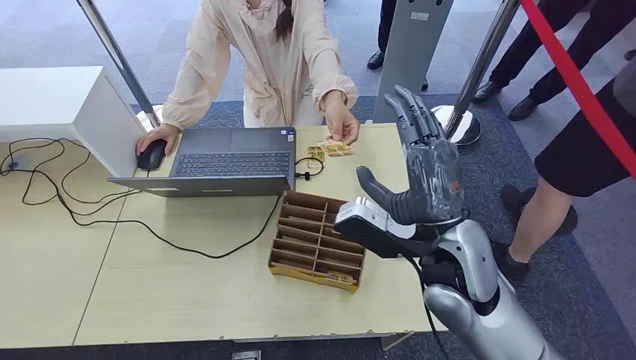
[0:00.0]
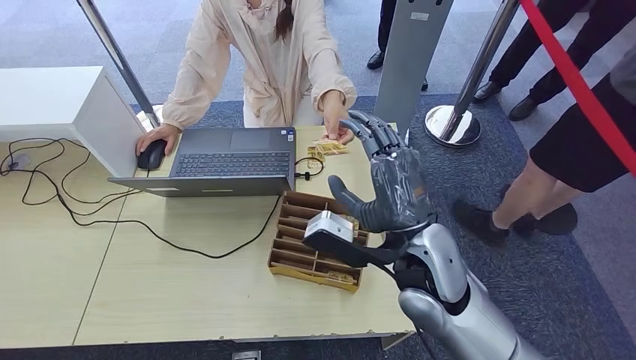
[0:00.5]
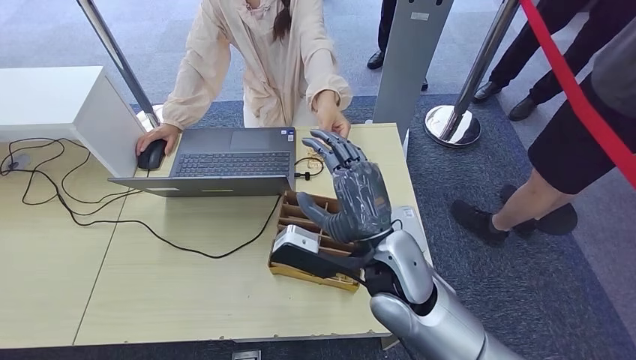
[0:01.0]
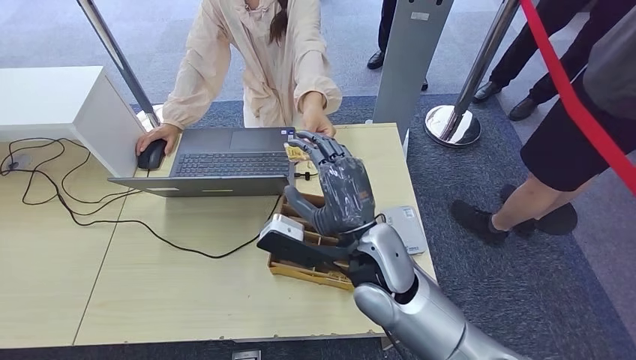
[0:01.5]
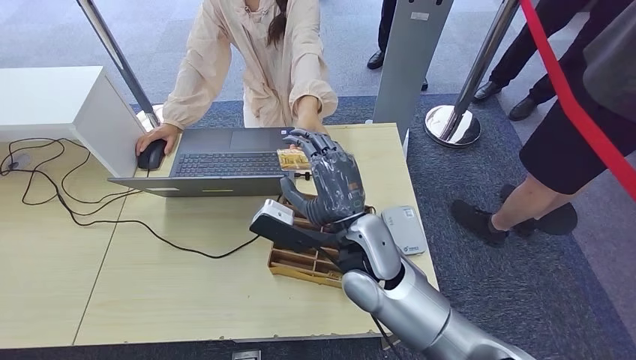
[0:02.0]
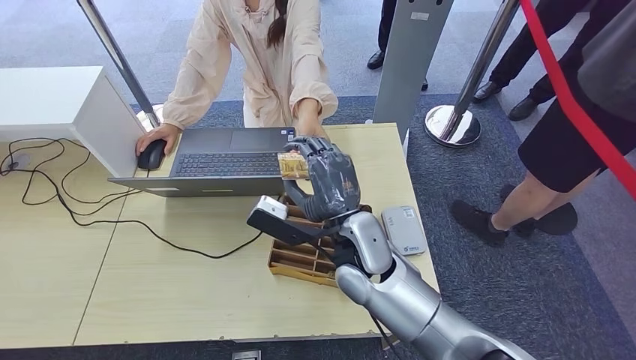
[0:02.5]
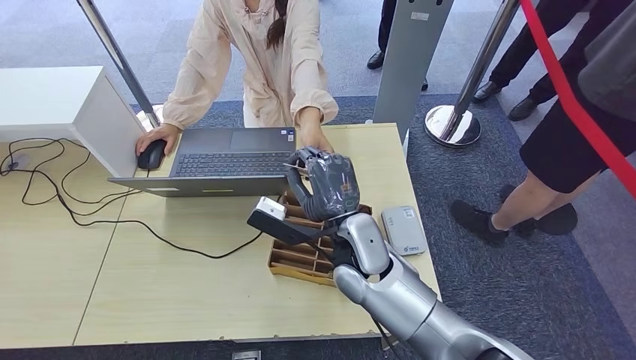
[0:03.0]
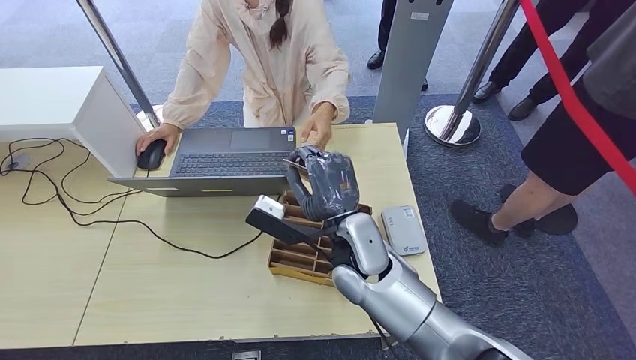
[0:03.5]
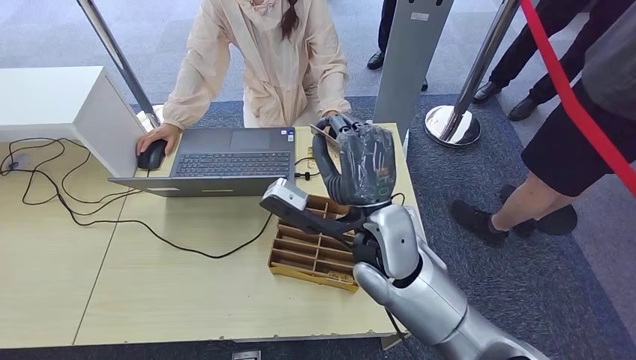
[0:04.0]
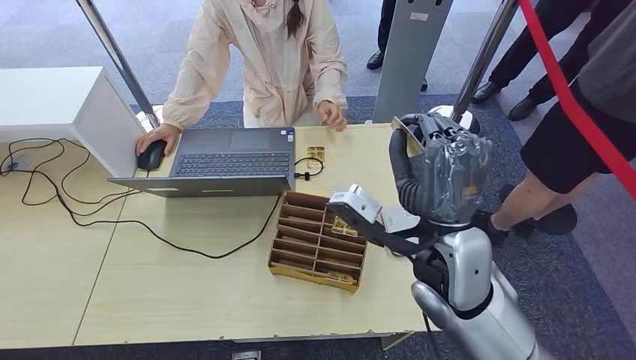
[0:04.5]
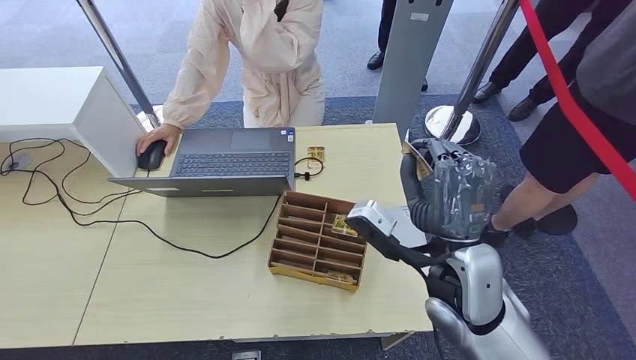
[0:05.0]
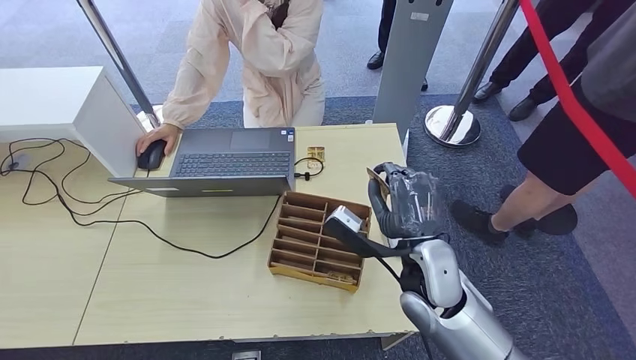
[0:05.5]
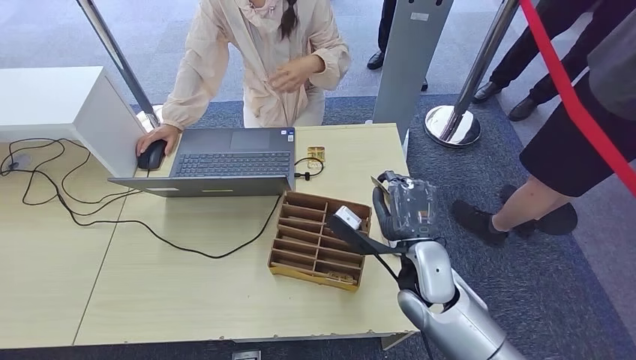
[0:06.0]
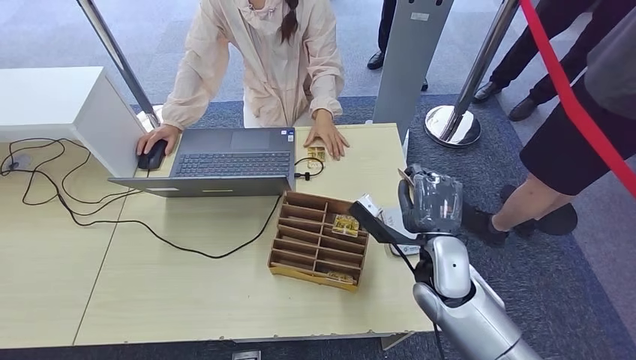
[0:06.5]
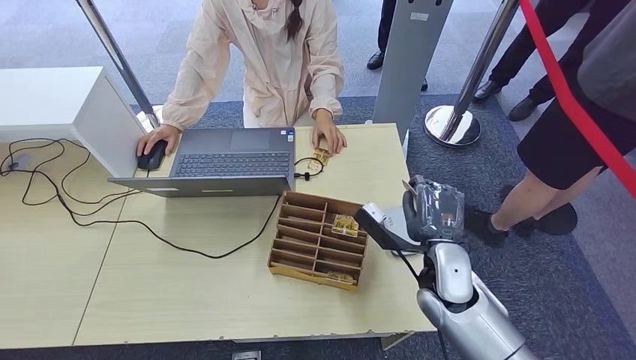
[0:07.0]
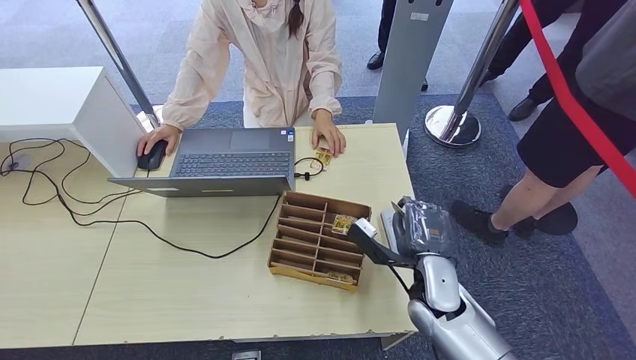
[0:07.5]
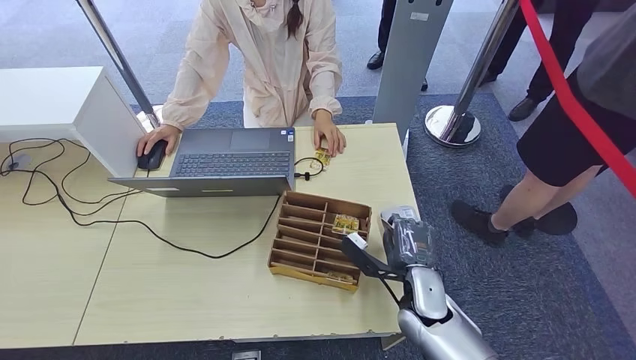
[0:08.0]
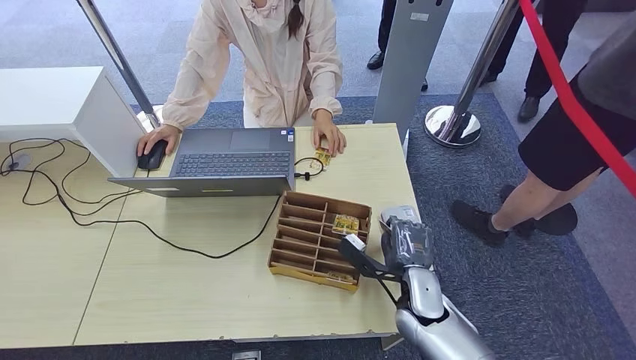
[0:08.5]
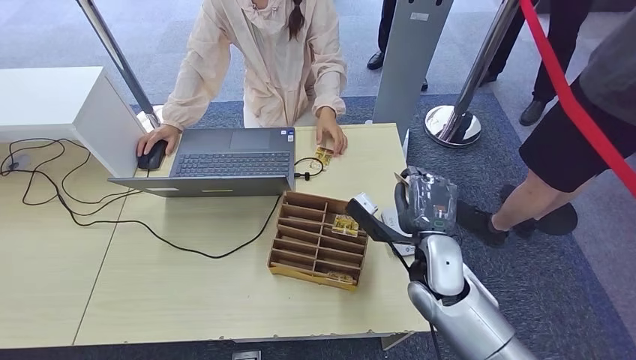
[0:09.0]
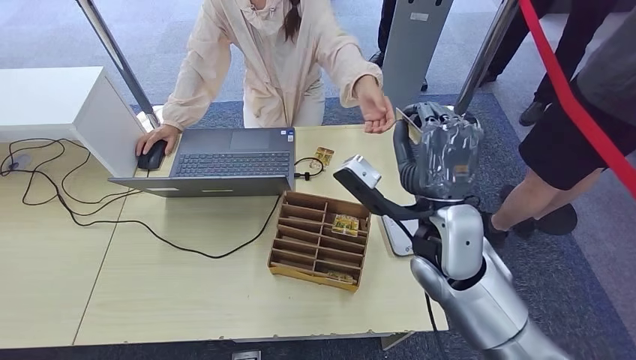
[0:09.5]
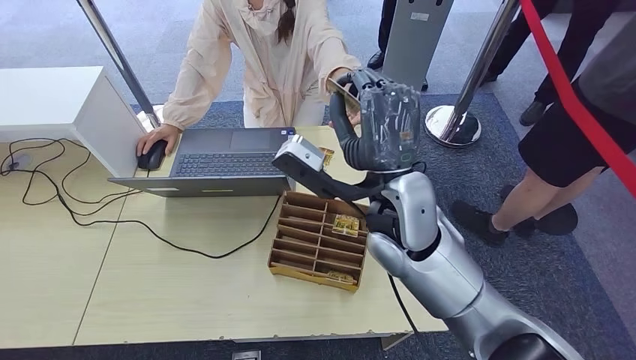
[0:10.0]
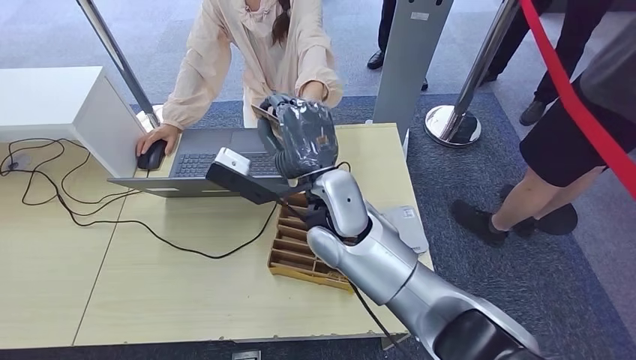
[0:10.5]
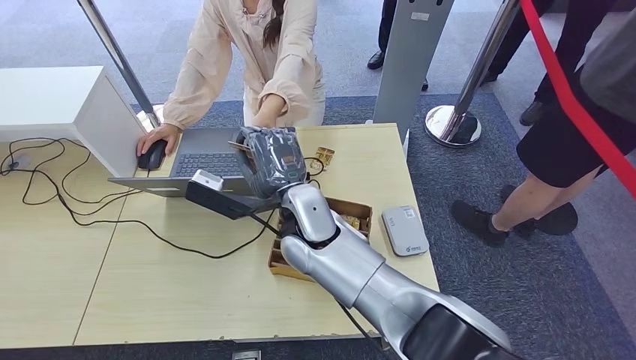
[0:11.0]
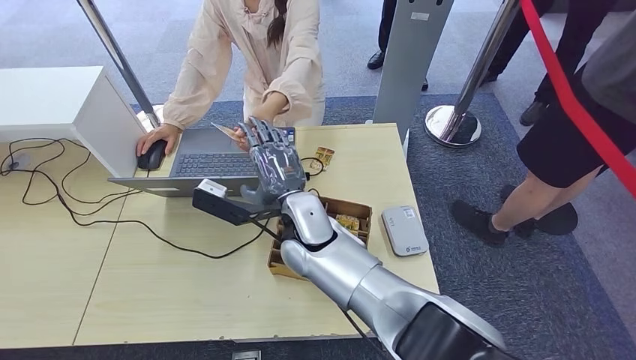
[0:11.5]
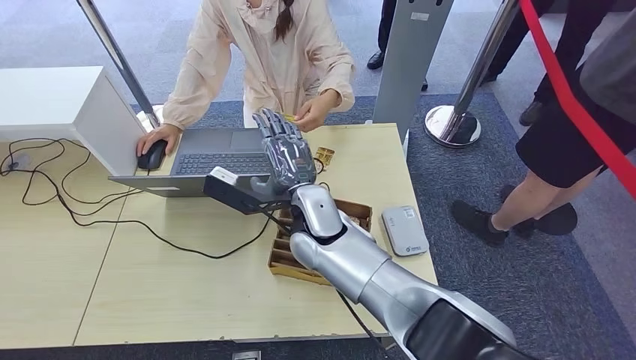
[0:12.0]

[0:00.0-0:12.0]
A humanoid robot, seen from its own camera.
Step, 0:00.0 to 0:03.5: Take the ID card from the person's hand.
Step, 0:04.0 to 0:08.0: Place the ID card on the card reader.
0:02.0 to 0:04.0: There are only small adjustments of the hands.
0:04.0 to 0:06.0: The right hand goes approximately 15 cm downward and to the right.
0:06.0 to 0:08.0: The right hand goes roughly 10 cm downward.
0:08.0 to 0:10.0: The right hand heads upward, covering some 25 cm.
0:10.0 to 0:12.0: The right hand goes roughly 15 cm to the left, downward and forward.

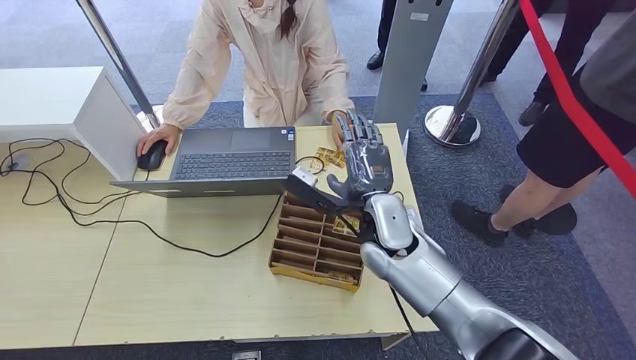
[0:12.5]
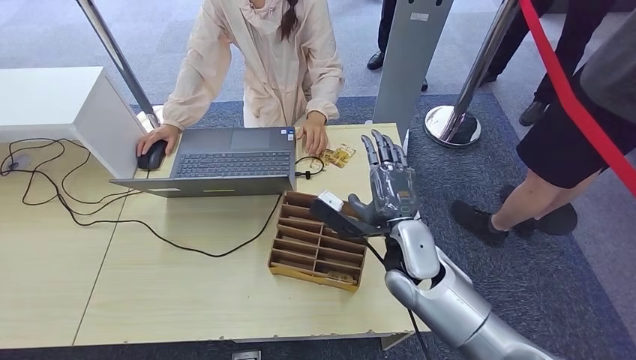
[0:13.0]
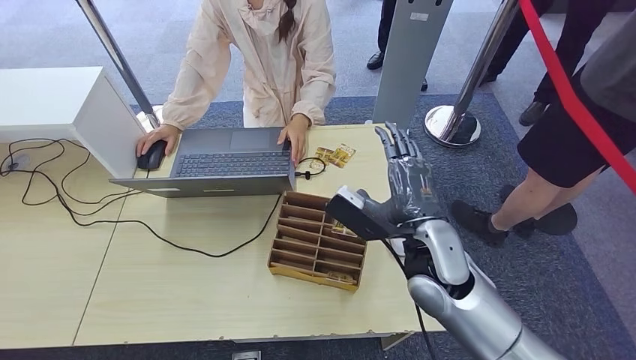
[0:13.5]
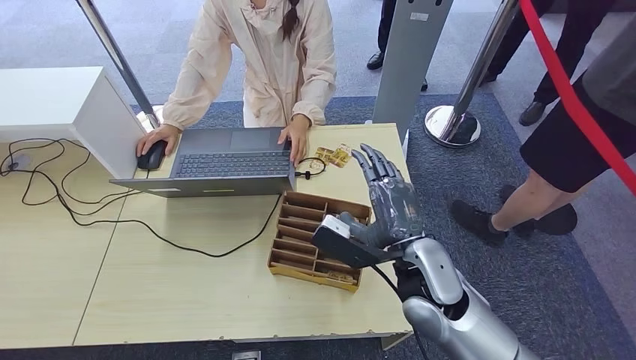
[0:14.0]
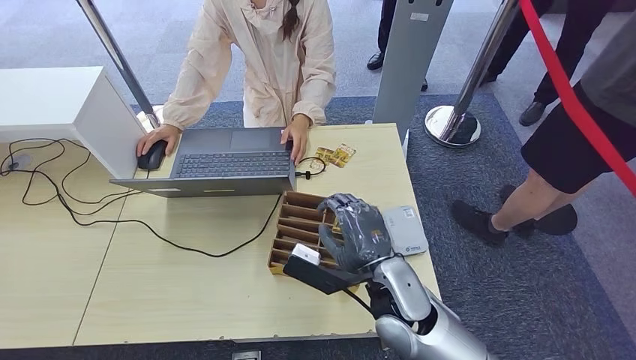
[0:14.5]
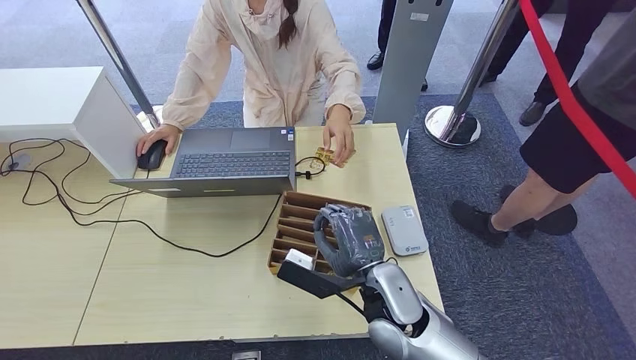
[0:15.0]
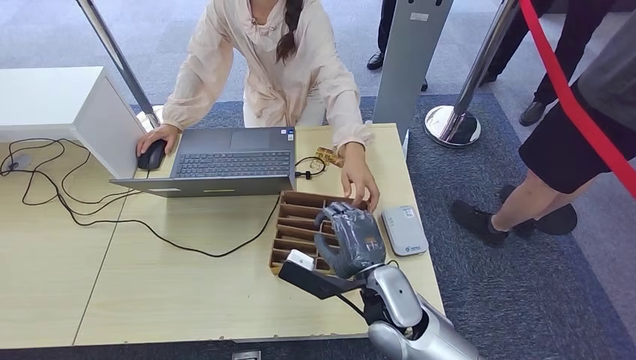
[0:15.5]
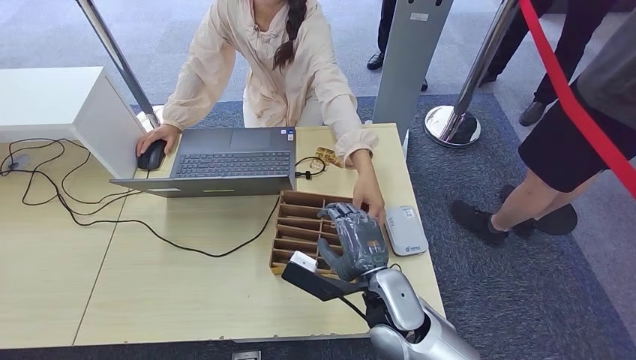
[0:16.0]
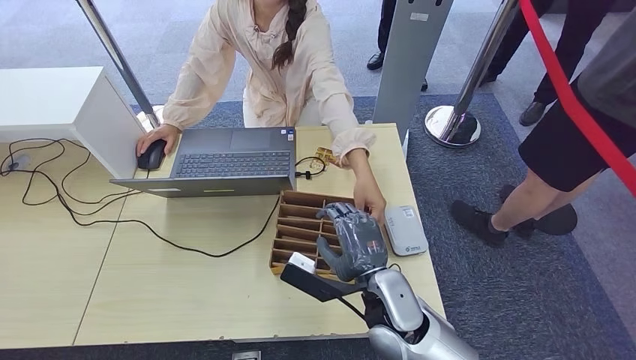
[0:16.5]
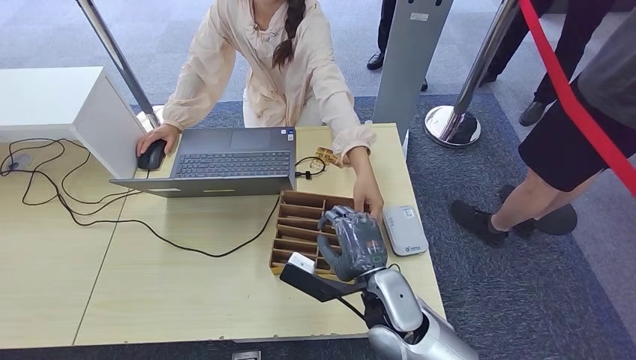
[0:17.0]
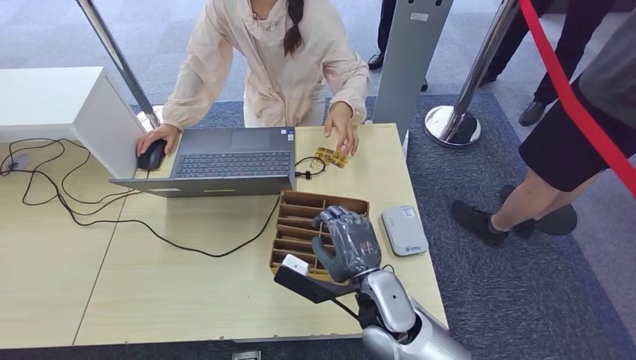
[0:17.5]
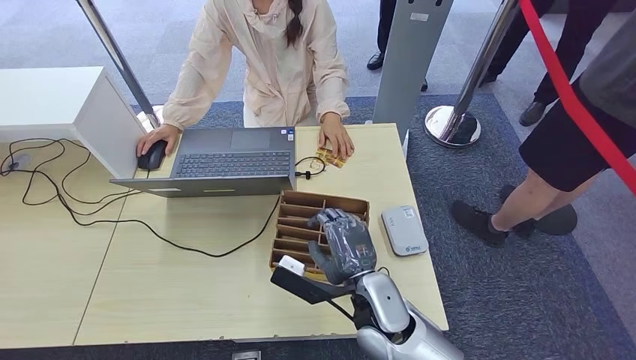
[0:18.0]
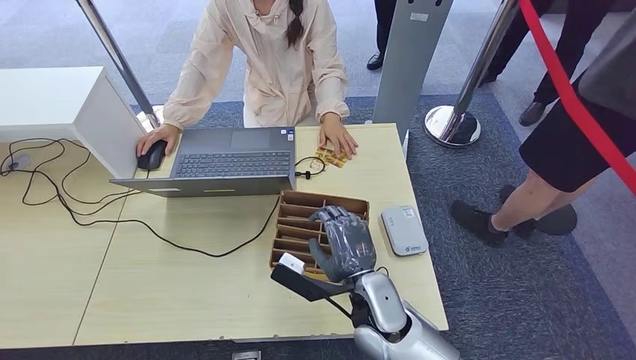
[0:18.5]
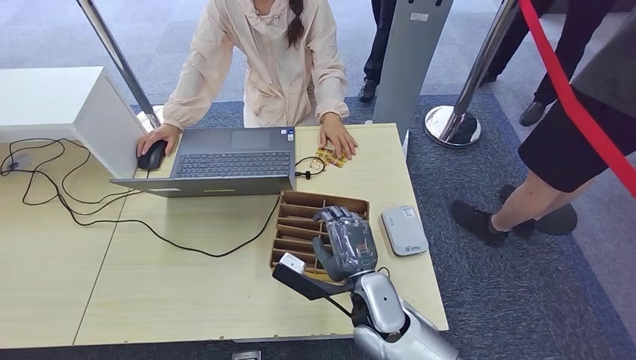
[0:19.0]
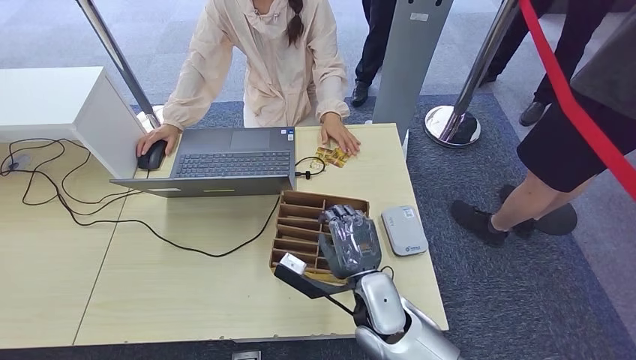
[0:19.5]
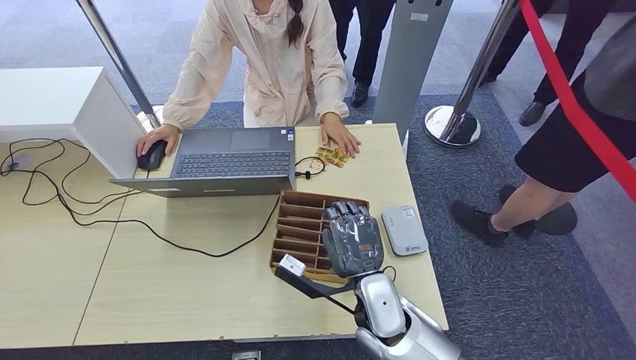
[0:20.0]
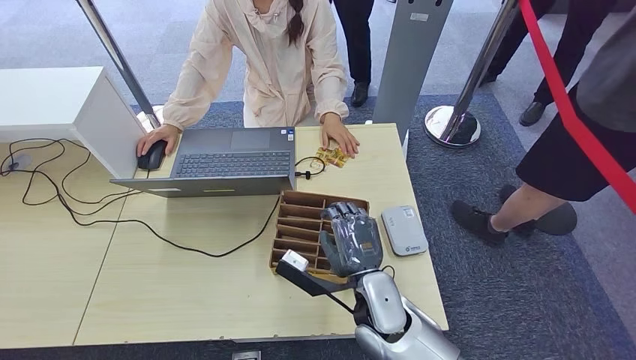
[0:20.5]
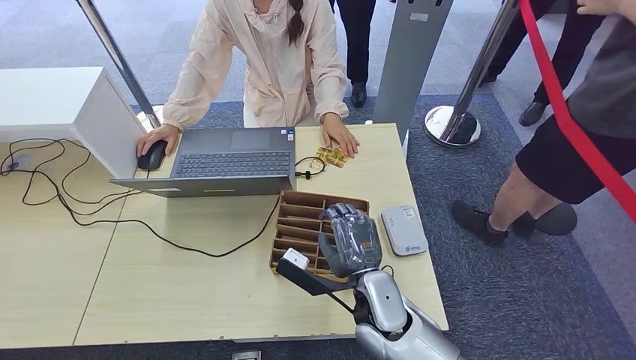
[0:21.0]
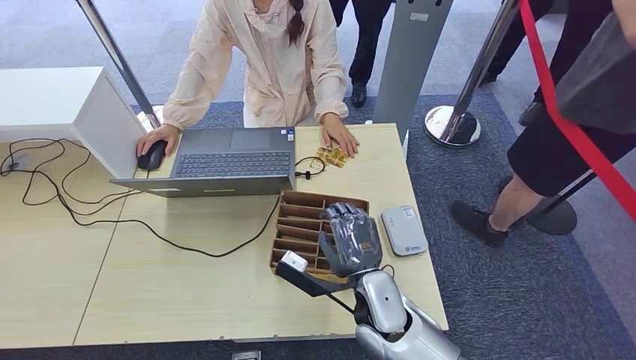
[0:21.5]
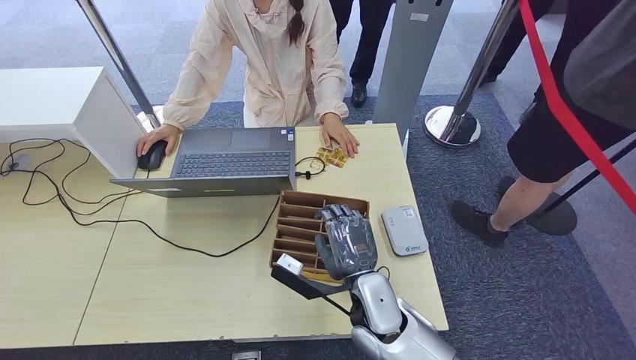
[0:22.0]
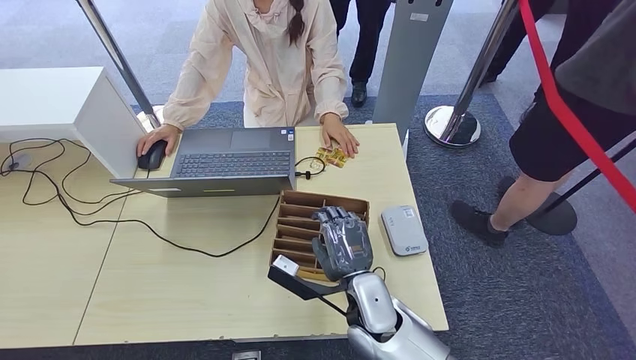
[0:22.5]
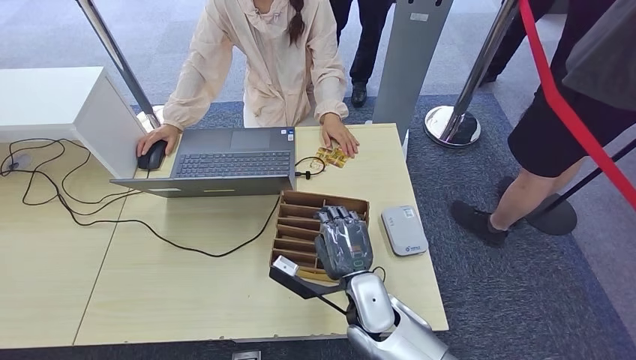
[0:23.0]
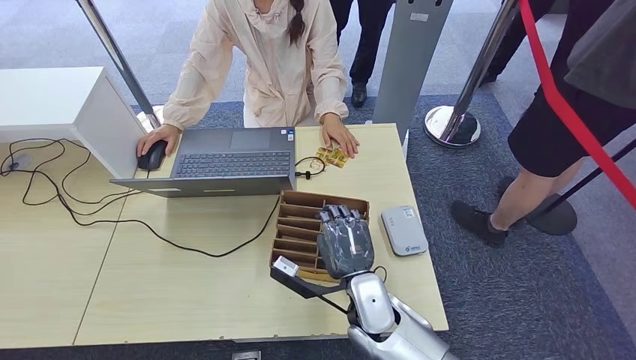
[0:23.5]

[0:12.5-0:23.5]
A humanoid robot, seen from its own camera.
0:12.5 to 0:14.5: The right hand goes some 10 cm backward.
0:14.5 to 0:21.5: The hands make only small movements.
0:21.5 to 0:23.5: The hands move only a little.
